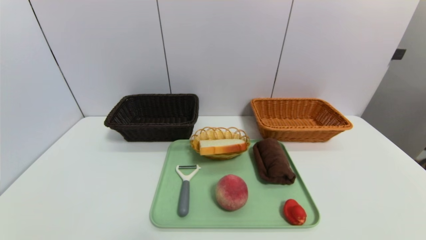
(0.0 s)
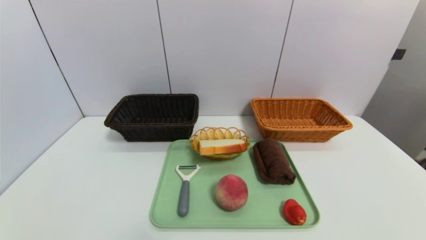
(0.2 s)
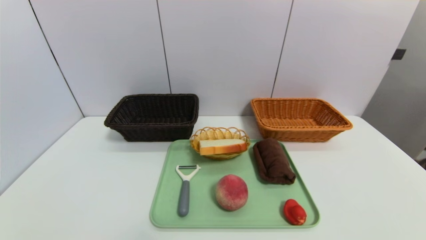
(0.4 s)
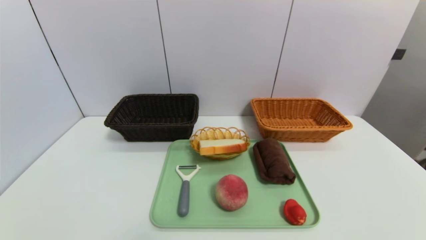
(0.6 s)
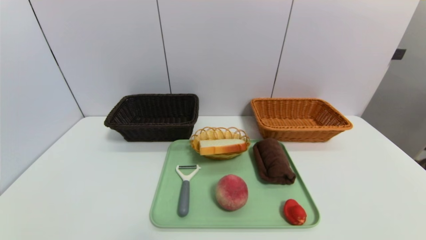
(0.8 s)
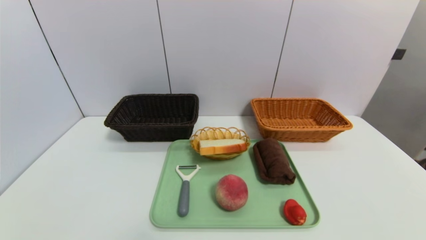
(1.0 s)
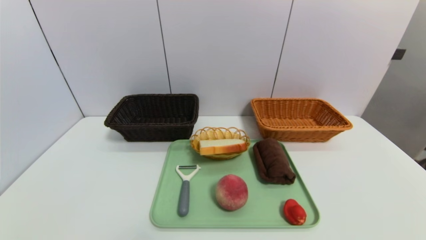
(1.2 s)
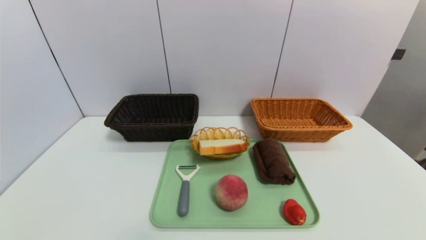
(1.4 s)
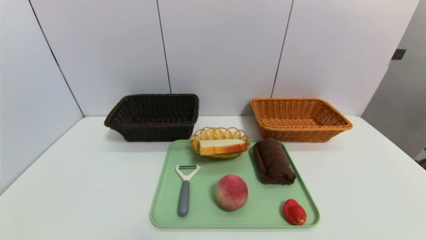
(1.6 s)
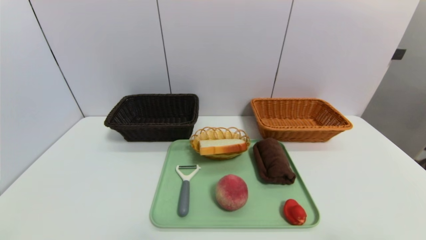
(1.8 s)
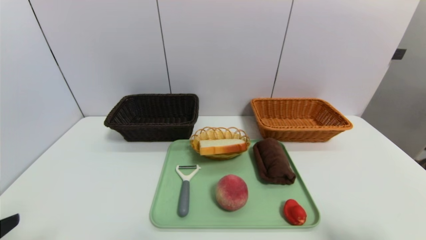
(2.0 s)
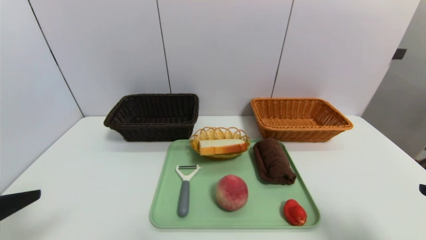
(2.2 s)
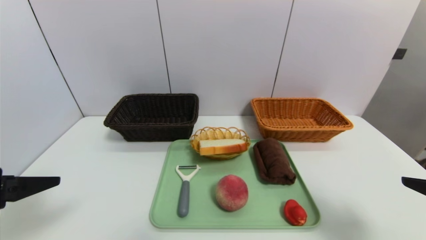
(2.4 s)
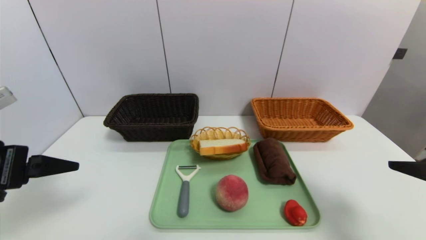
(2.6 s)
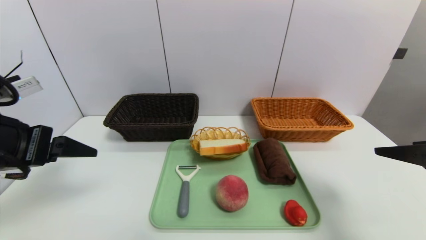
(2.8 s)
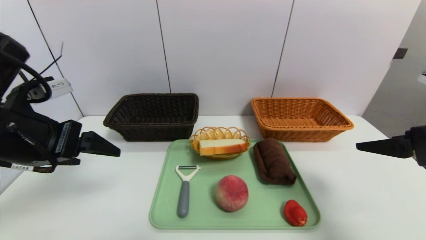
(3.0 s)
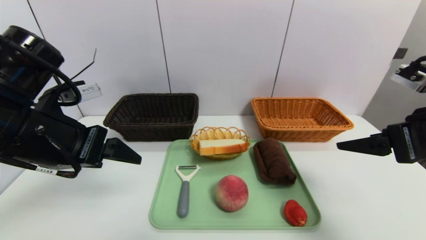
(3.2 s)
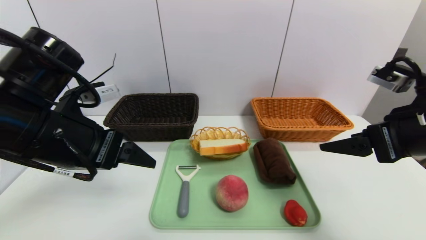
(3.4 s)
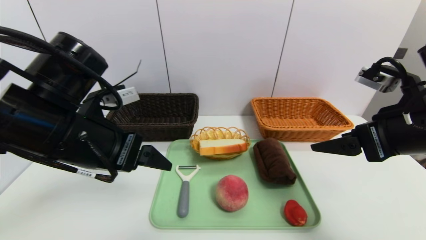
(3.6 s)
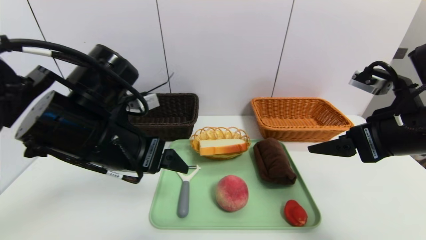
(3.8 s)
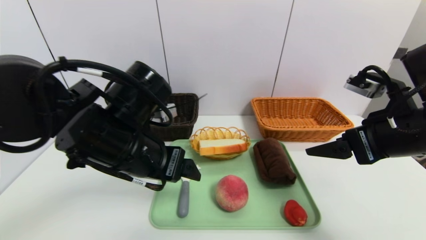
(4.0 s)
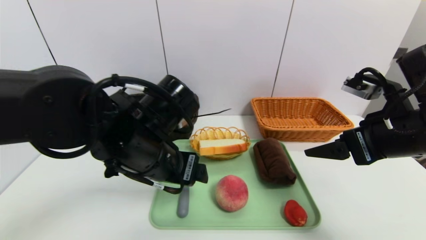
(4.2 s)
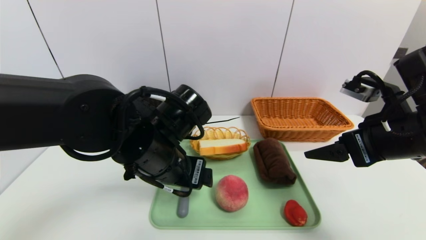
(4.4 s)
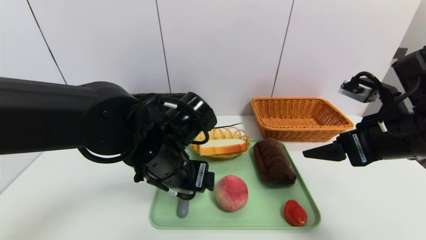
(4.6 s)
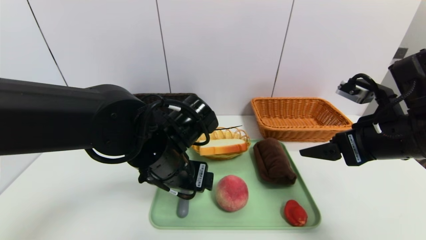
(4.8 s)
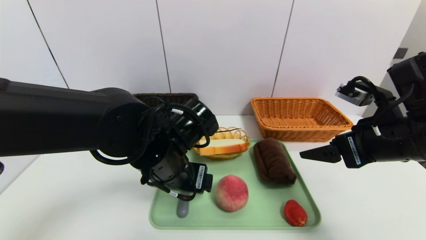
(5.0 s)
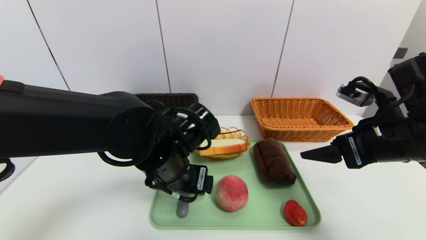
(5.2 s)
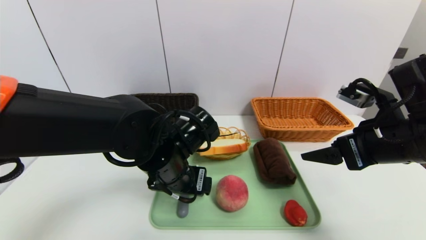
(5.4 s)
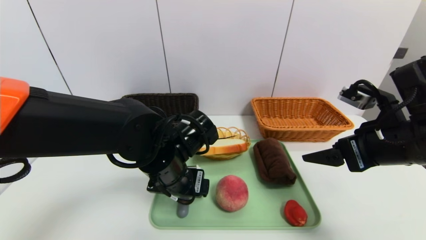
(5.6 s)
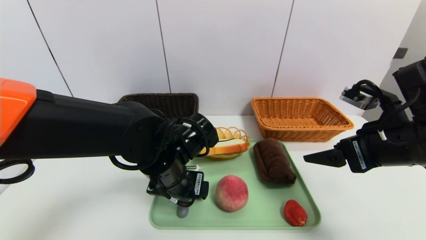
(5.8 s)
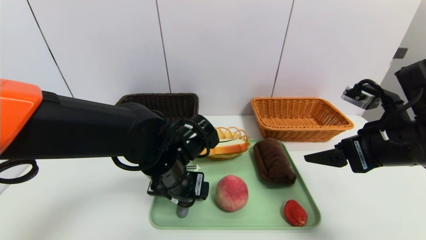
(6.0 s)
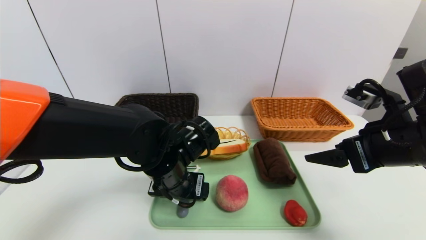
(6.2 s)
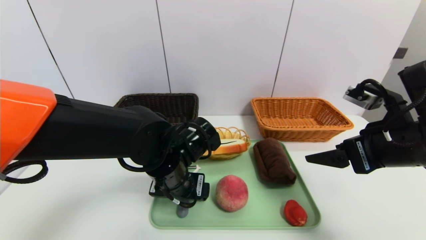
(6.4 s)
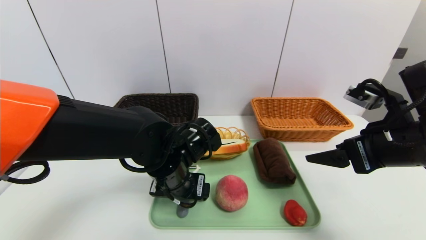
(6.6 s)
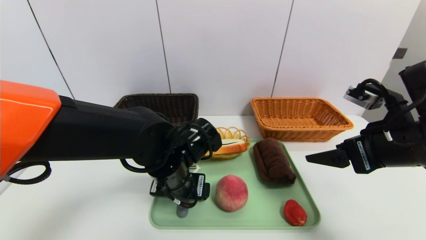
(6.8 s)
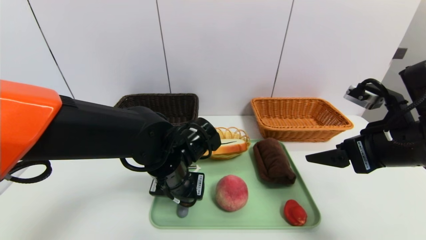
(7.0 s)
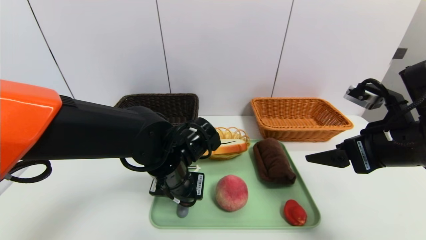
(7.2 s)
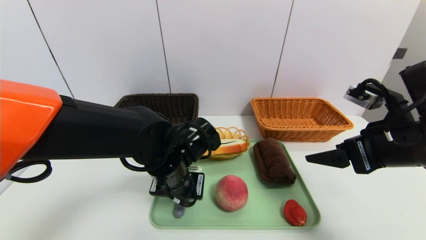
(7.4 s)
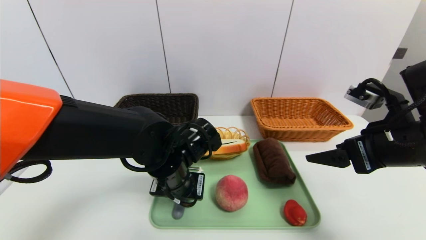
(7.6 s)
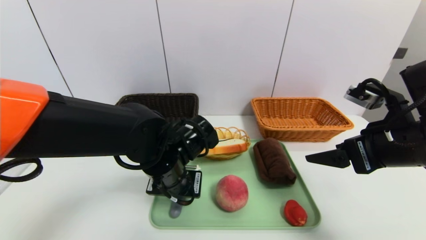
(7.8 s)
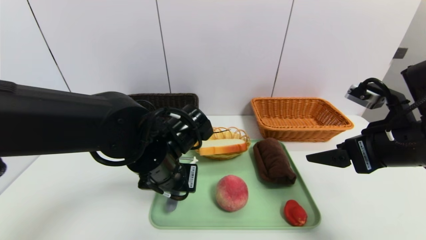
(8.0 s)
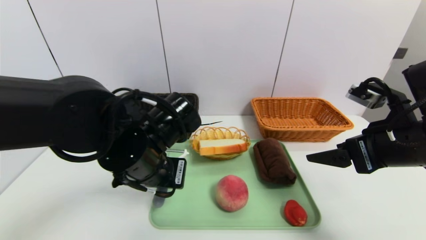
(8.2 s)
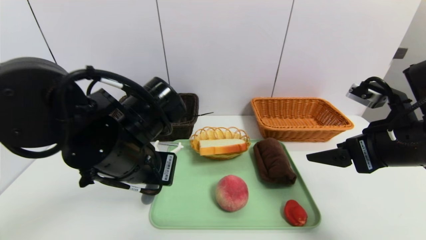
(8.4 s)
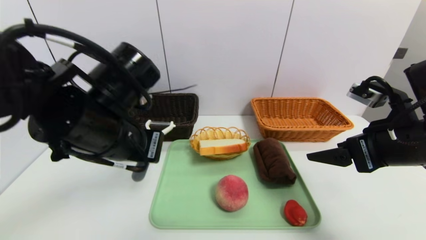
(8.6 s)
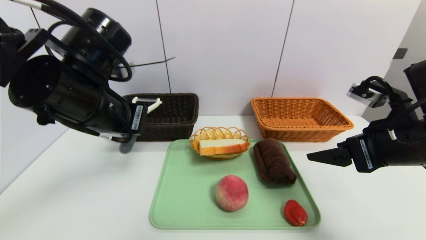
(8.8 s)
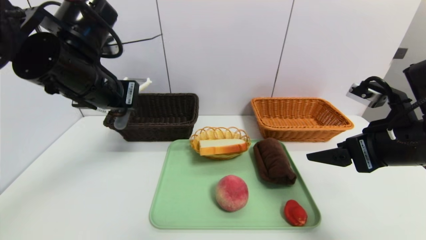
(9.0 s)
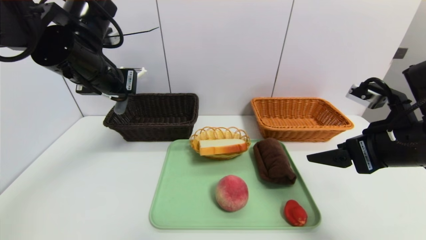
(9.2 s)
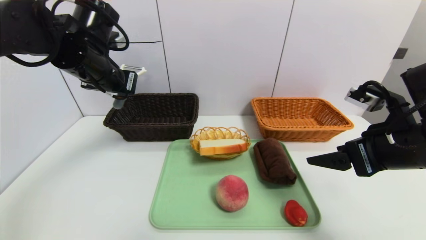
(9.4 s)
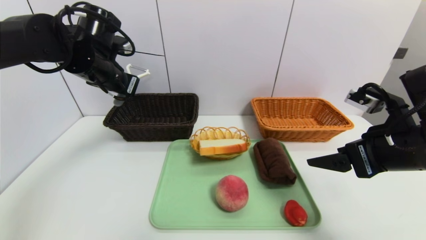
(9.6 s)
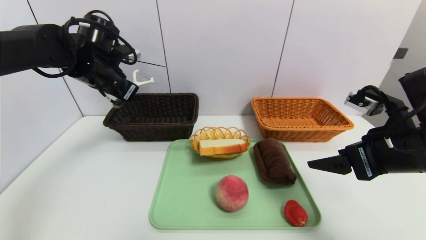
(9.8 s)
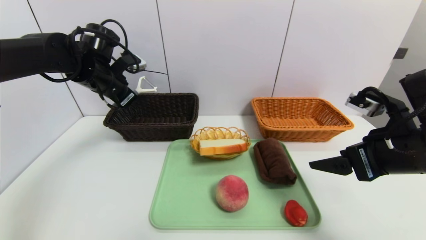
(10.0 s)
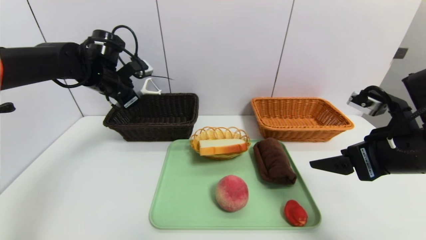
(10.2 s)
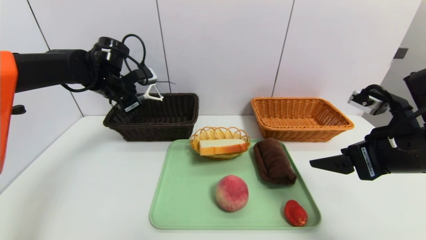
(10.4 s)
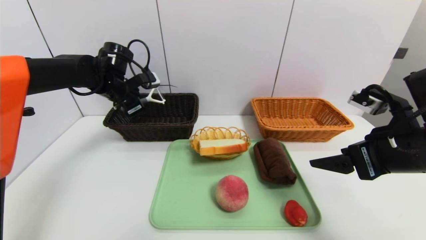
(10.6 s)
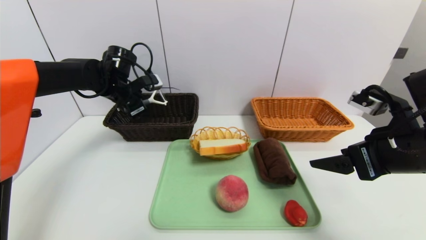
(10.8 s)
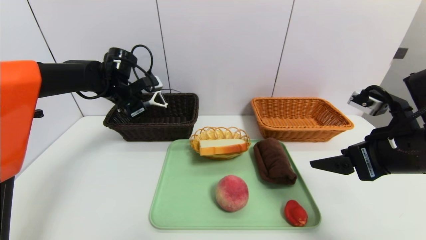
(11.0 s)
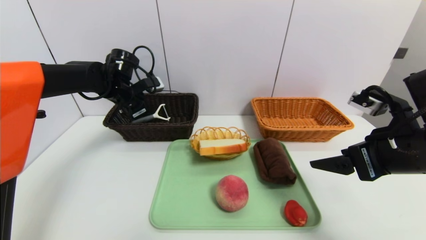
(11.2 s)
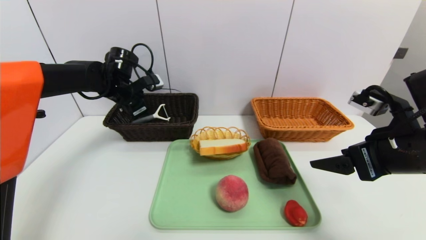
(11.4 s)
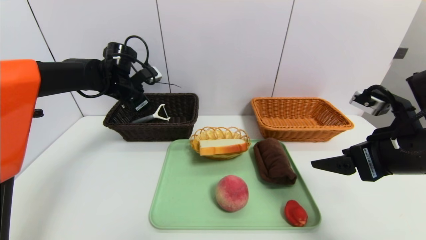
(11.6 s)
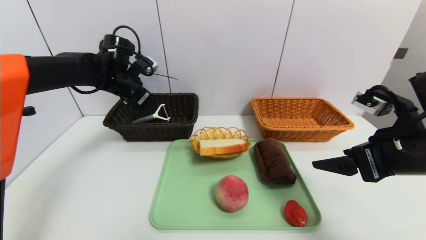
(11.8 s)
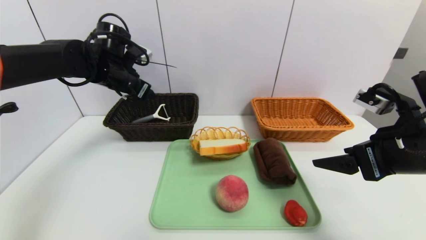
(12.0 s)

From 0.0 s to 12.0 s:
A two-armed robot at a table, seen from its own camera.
Task of the whole recording: place the food in the right basket with the right gripper, and place the non food items in the left basket with the left gripper.
Step, from 0.0 s to 11.2 s: Grasp the peeler and put it in the left basket.
From 1.6 s to 3.0 s: The right gripper is displaced forward by roughly 20 cm, while the left gripper travels forward and upward by roughly 25 cm.
From 3.0 s to 4.4 s: The left gripper moves to the right and downward, about 20 cm; the right gripper goes about 5 cm to the left.
From 4.4 s to 6.0 s: The left gripper goes roughly 5 cm downward.
From 6.0 s to 7.6 s: The left gripper closes up.
From 7.6 s to 9.0 s: The left gripper moves upward and to the left, approximately 20 cm.
From 9.0 s to 10.4 s: The left gripper is displaced forward and downward by some 15 cm.
From 10.4 s to 12.0 s: The left gripper opens up.

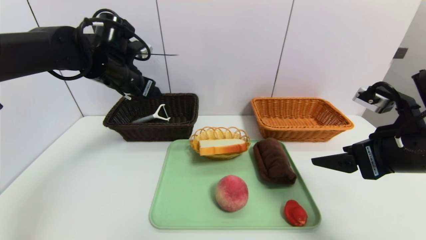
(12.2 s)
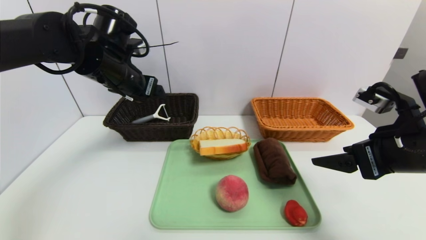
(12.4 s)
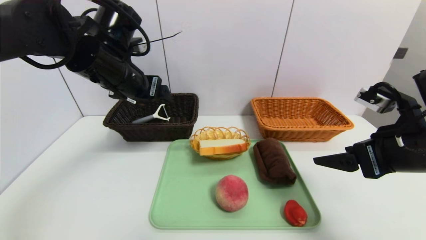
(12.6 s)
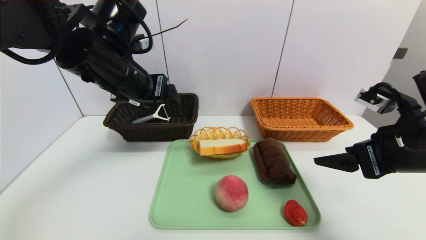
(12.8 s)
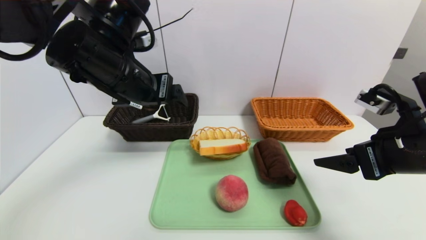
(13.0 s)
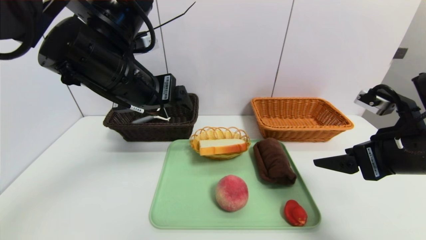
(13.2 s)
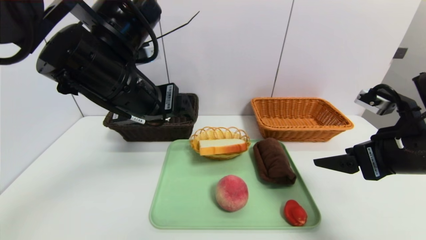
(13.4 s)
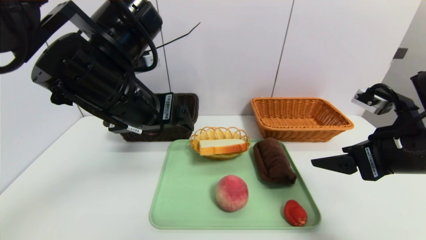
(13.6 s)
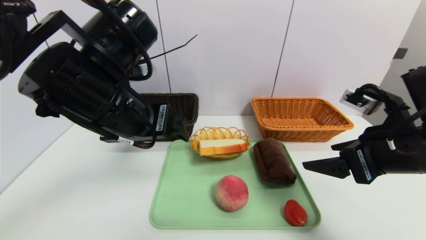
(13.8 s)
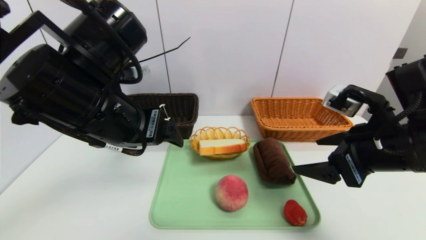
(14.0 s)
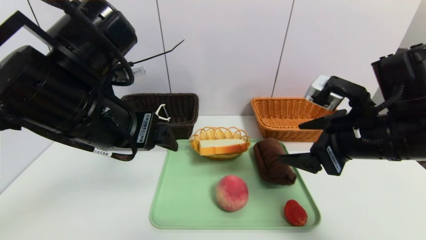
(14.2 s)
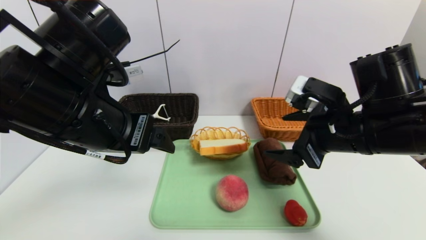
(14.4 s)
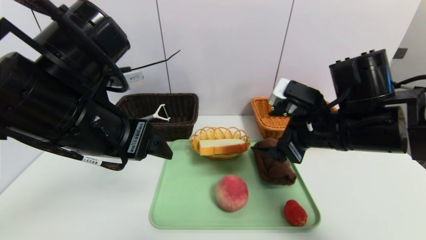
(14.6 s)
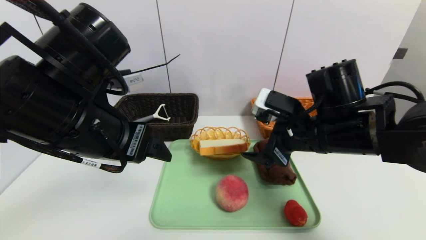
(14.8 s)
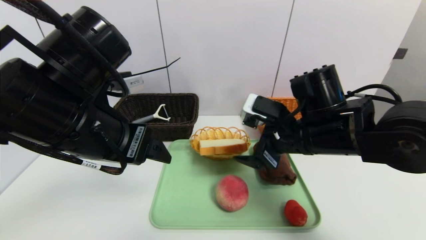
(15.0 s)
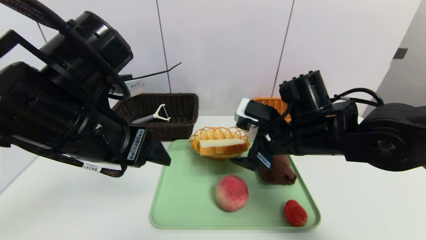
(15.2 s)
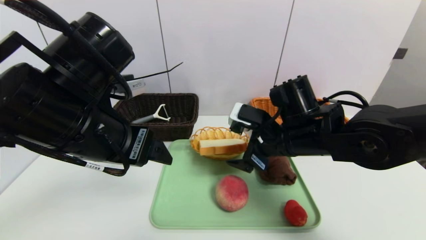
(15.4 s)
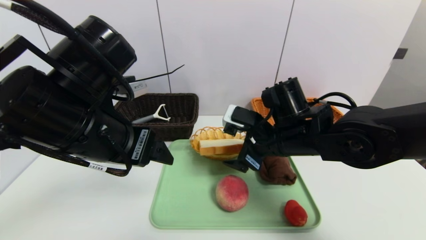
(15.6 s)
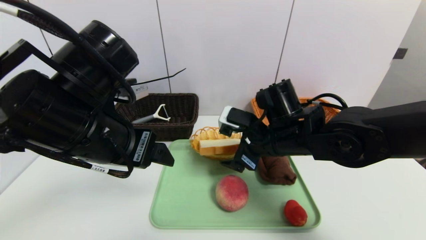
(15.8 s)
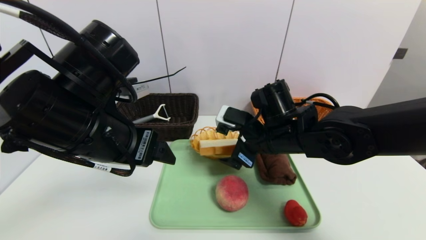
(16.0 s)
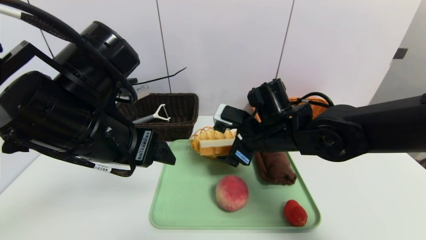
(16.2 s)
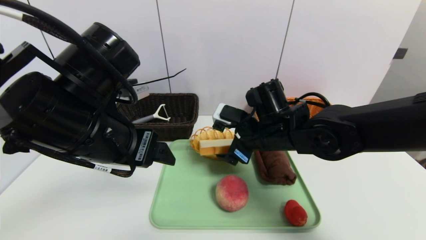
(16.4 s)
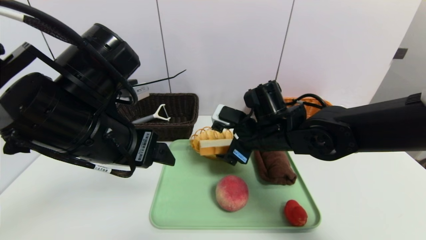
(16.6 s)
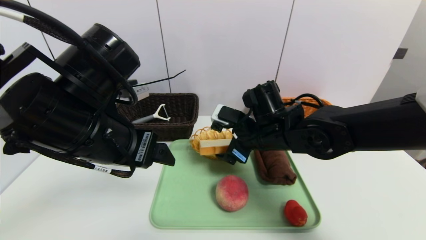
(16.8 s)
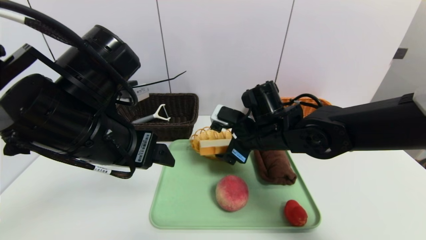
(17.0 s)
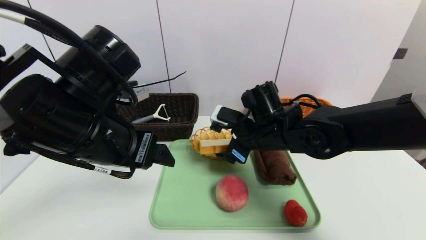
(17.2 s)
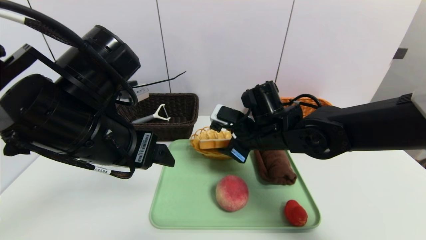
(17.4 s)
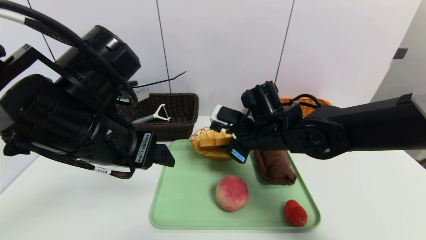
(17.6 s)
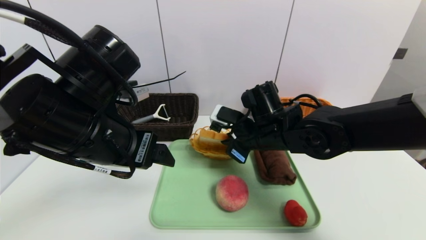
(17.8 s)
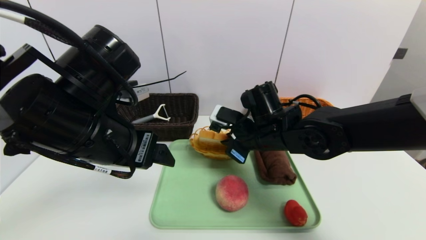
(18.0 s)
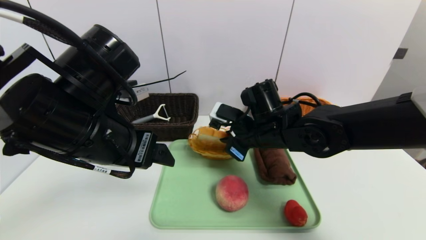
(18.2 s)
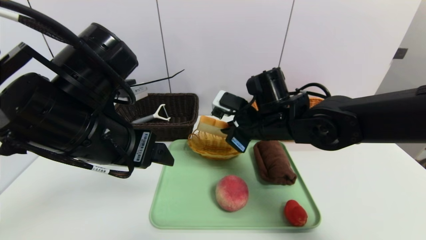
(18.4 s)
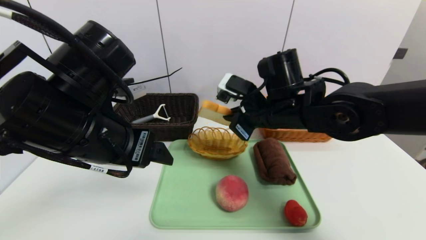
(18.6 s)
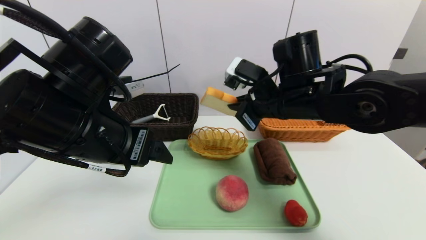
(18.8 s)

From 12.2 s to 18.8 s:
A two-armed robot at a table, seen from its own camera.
Task of the whole recording: place the food in the right basket with the right gripper, and place the non food items in the left basket with the left gripper.
From 12.2 s to 13.8 s: The left gripper heads backward and to the right, covering about 15 cm.
From 13.8 s to 15.4 s: The right gripper heads to the left and forward, covering roughly 15 cm.
From 15.4 s to 17.2 s: The right gripper moves roughly 5 cm.
From 17.2 s to 18.8 s: The right gripper heads upward, covering roughly 10 cm, and closes its fingers.
